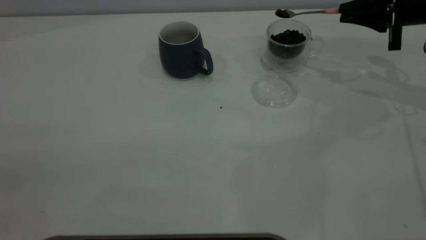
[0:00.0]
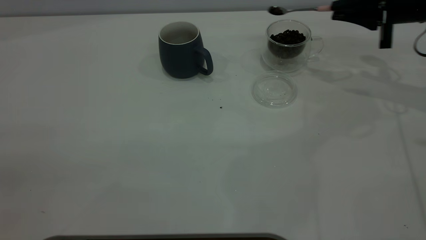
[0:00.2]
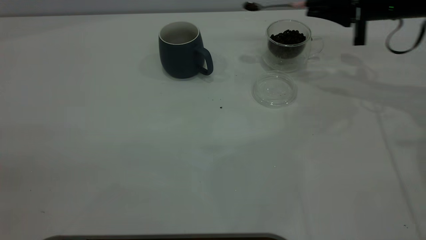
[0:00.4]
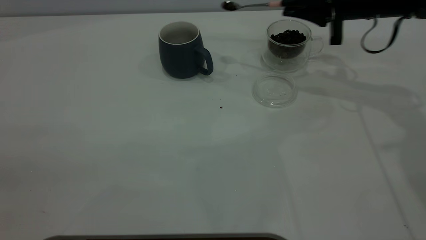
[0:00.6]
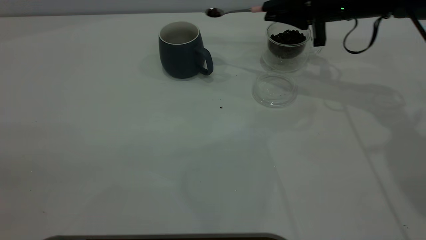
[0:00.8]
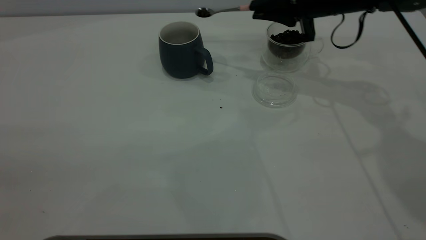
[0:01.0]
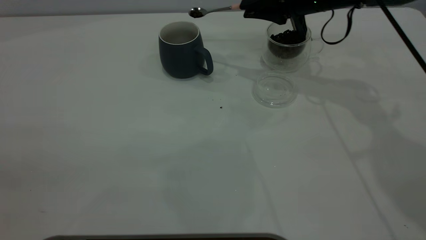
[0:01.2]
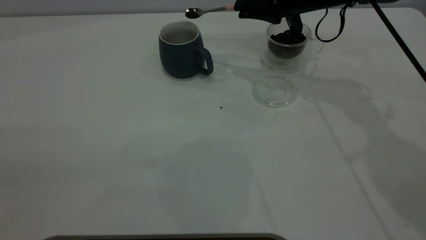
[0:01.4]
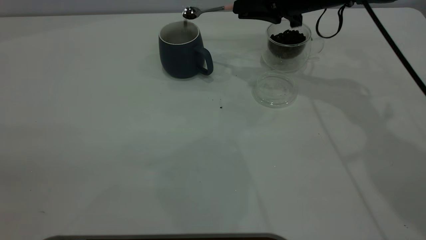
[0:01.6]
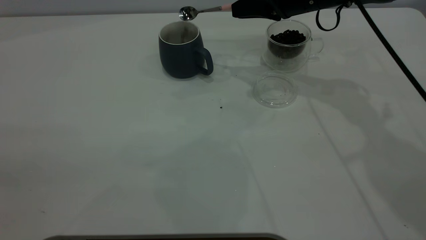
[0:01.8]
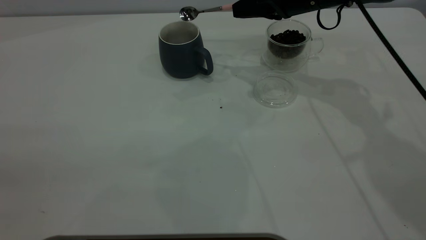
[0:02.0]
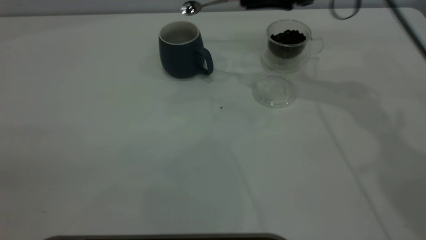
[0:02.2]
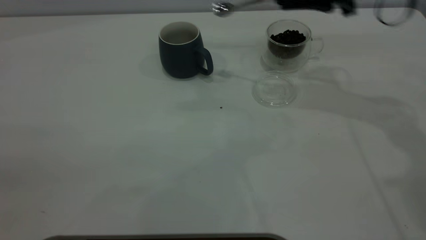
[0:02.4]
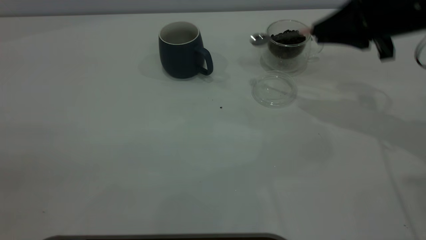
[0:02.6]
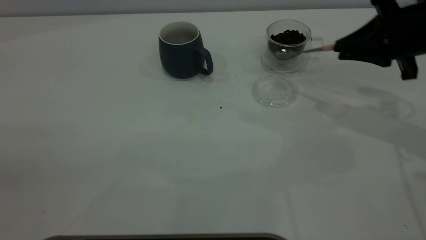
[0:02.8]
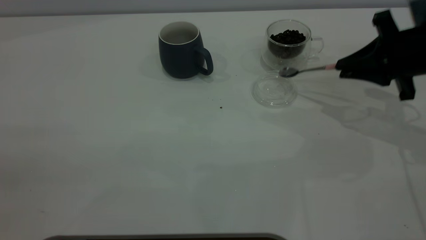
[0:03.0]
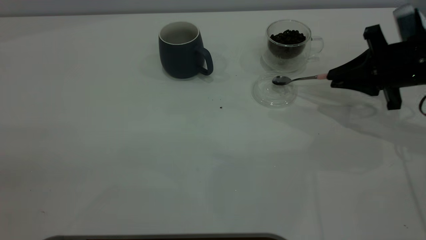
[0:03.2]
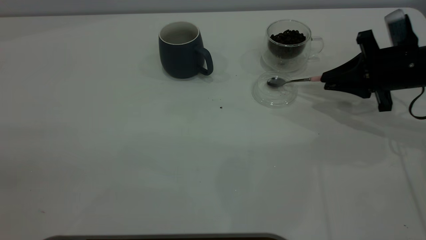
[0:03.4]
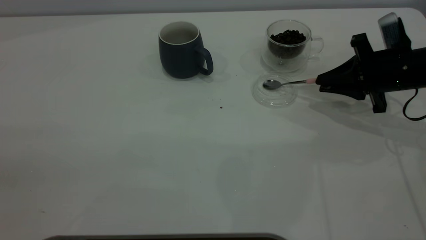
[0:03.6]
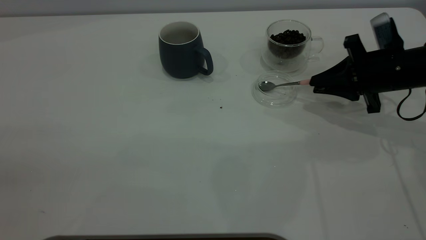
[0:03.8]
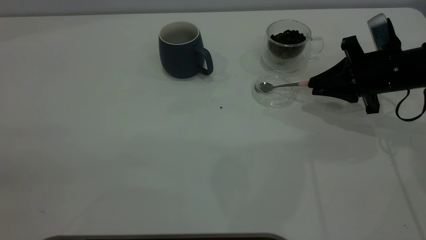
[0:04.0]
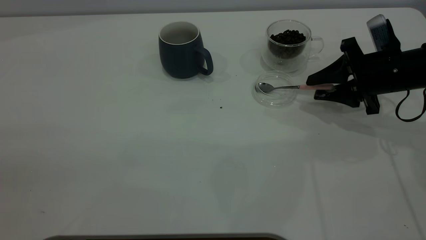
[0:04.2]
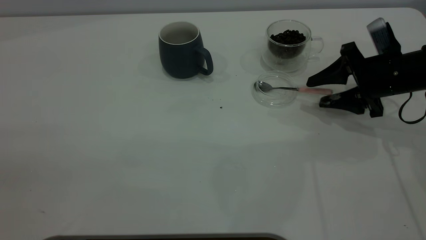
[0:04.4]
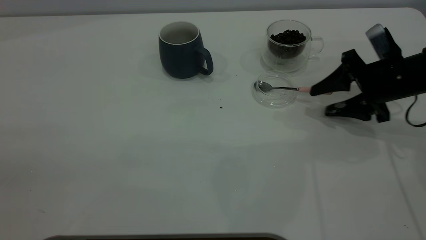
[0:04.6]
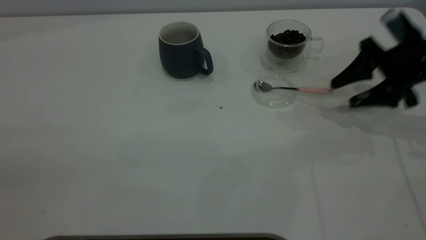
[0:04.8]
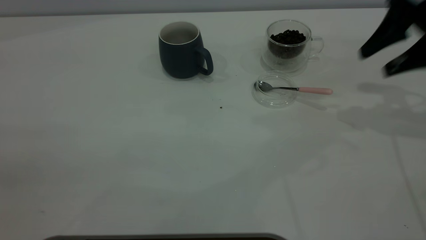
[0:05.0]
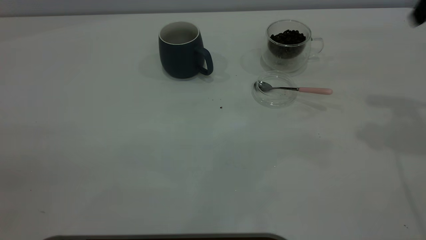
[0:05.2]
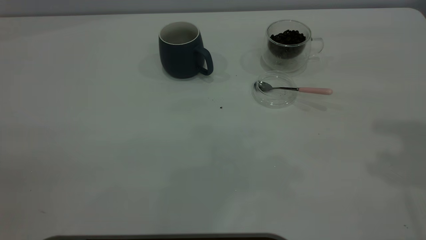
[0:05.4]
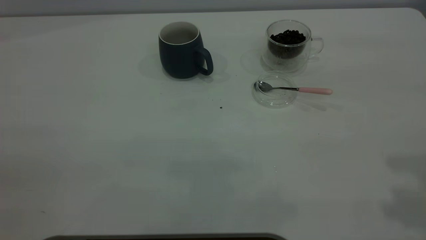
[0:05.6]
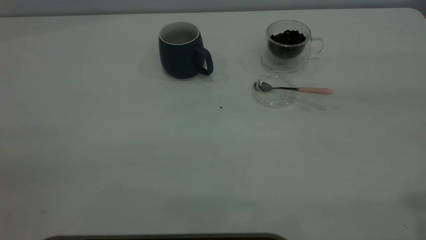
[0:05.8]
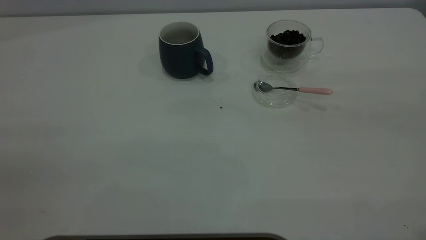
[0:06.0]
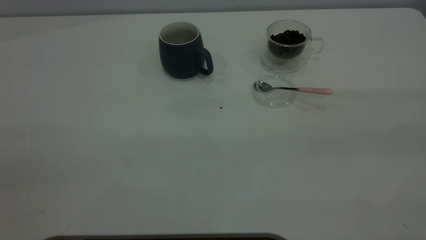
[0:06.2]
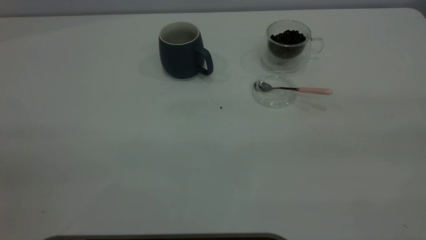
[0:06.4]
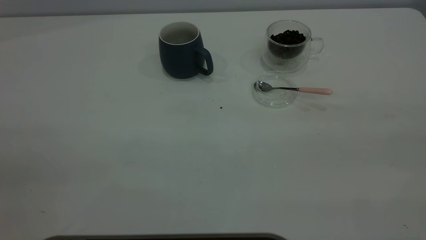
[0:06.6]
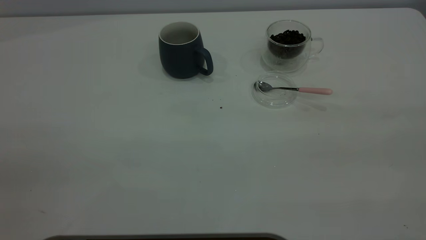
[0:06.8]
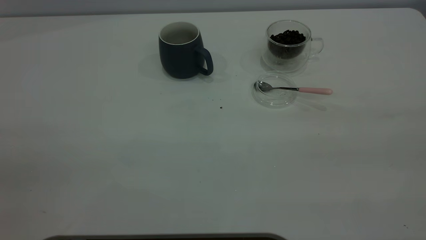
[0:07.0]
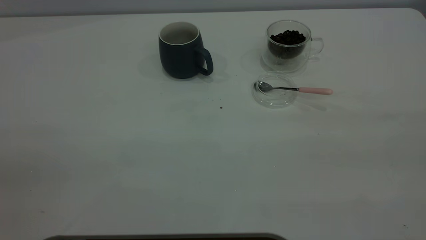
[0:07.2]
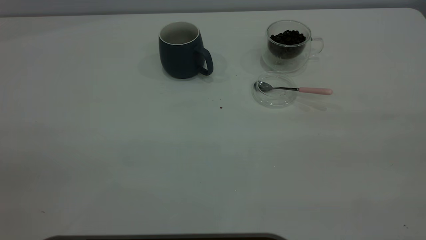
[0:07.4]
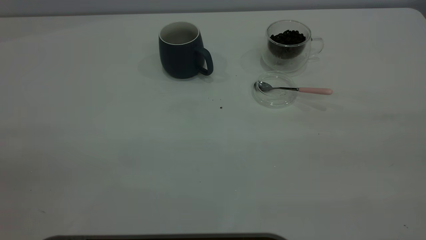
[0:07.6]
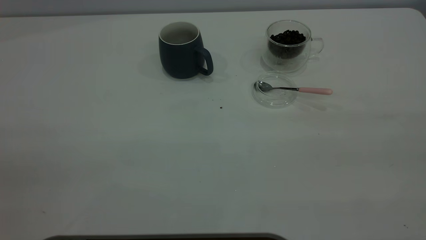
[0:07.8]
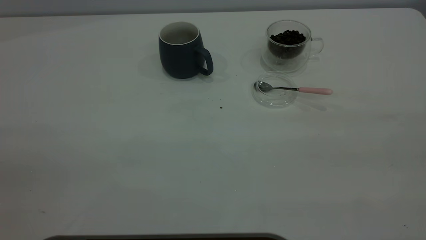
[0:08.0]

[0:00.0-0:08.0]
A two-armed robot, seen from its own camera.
Task of the whole recording: the left gripper place the grey cup in the center of the table, the right gripper take the pink spoon from the cup lid and scoop out the coffee beans from the coffee cup and put them into the grey cup, the right gripper put the spoon back into the cup lid.
Step, 0:02.2 to 0:04.6: Place the spoon back in its original place.
0:00.0 to 0:01.6: The right gripper shifts approximately 20 cm to the left.
0:01.6 to 0:03.2: The right gripper shifts about 20 cm to the right, backward and downward.
0:03.2 to 0:04.8: The right gripper opens.
0:04.8 to 0:06.4: The right gripper shifts roughly 40 cm backward and upward.
